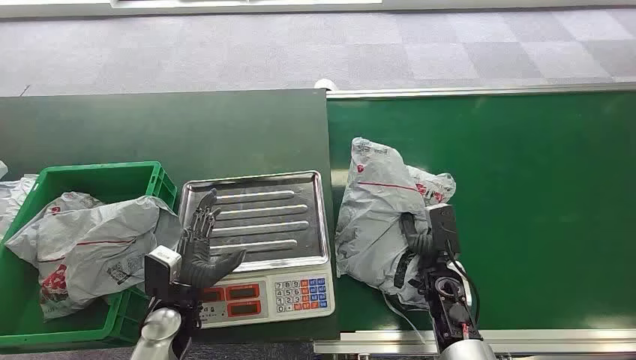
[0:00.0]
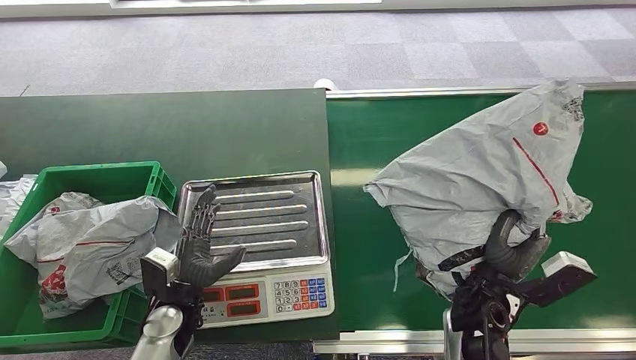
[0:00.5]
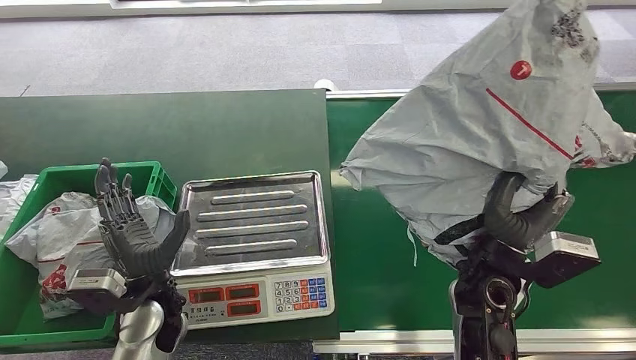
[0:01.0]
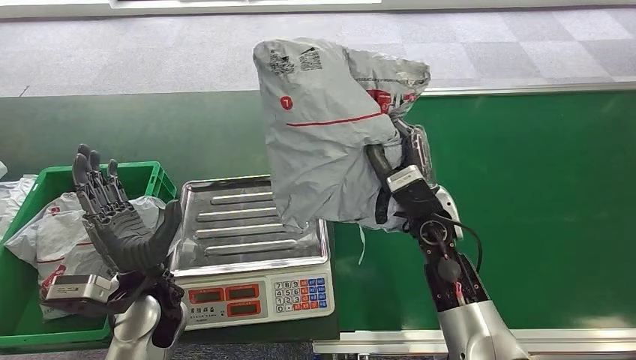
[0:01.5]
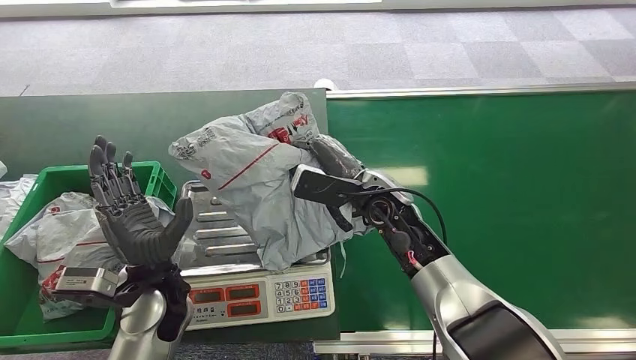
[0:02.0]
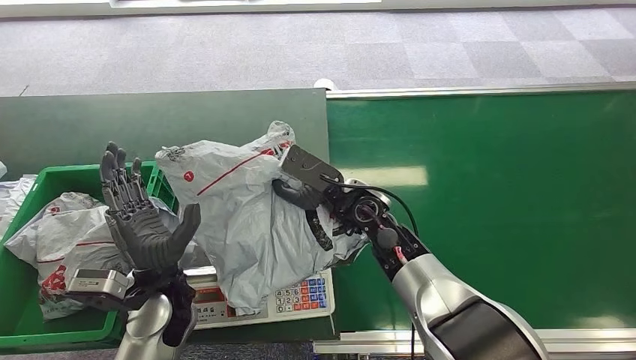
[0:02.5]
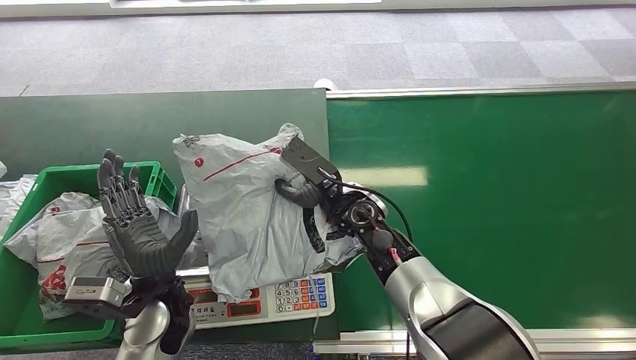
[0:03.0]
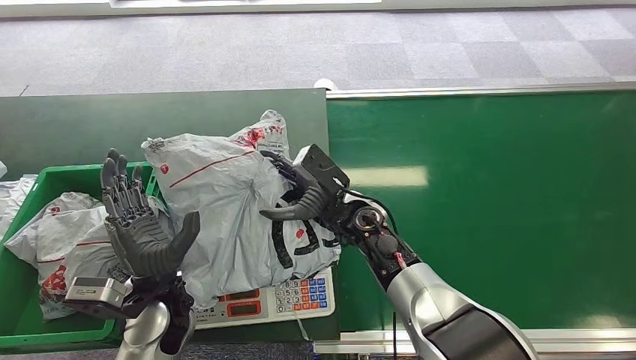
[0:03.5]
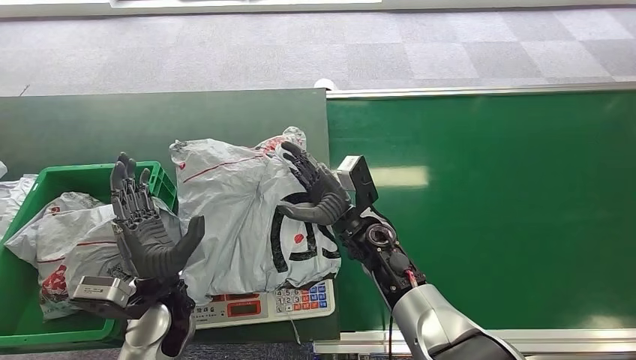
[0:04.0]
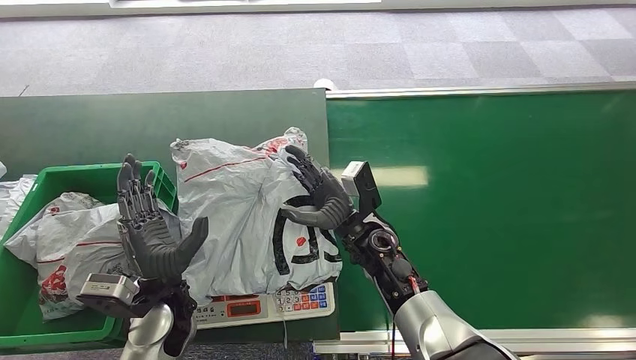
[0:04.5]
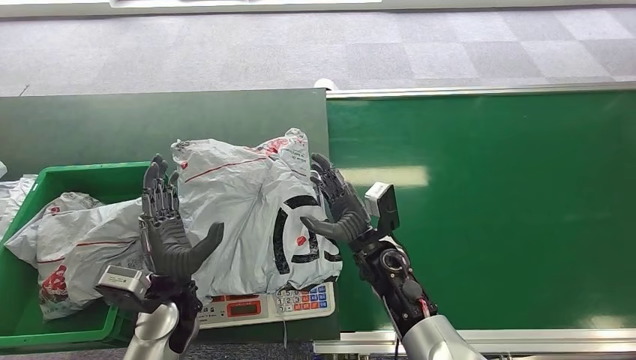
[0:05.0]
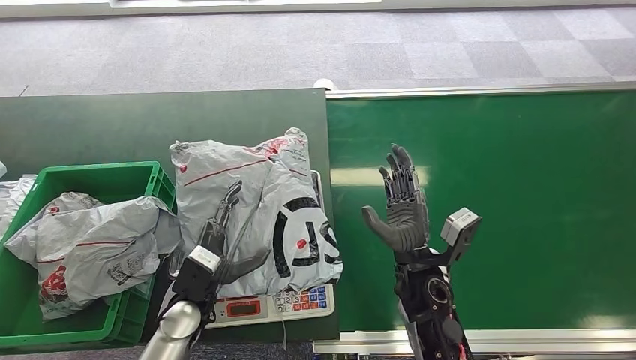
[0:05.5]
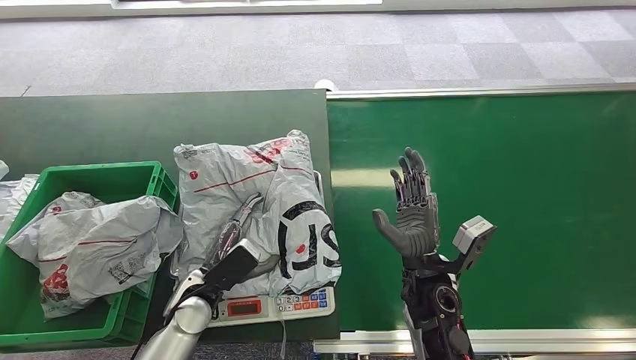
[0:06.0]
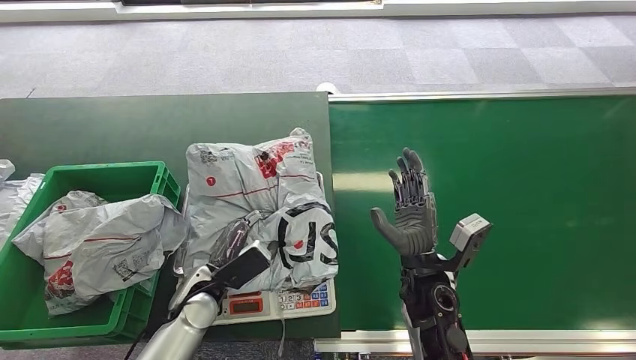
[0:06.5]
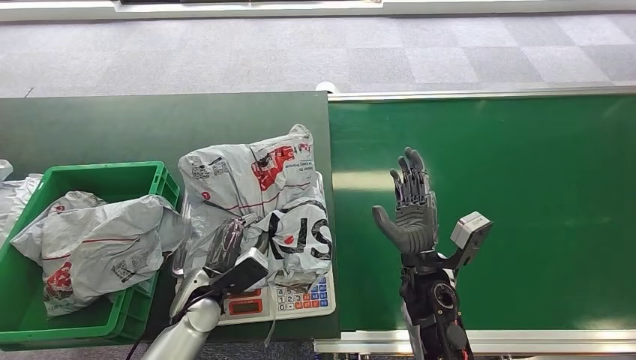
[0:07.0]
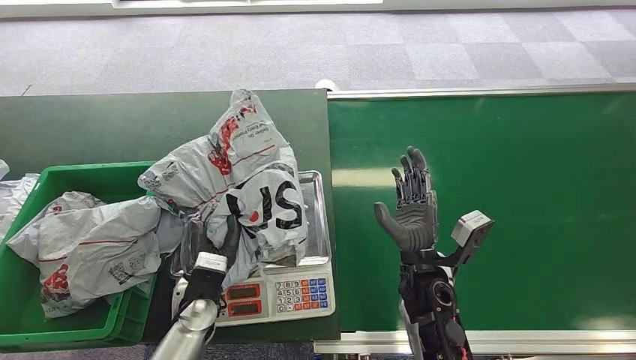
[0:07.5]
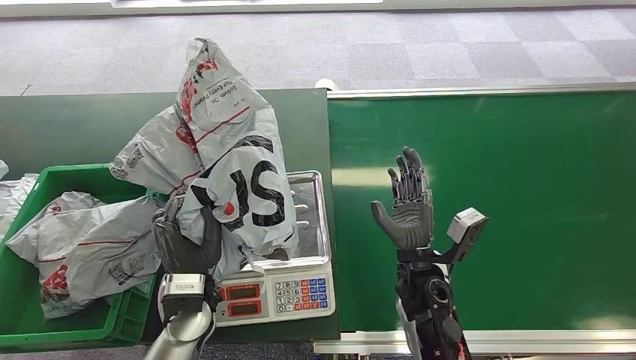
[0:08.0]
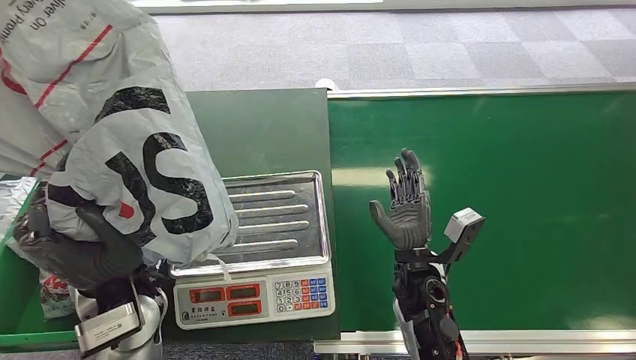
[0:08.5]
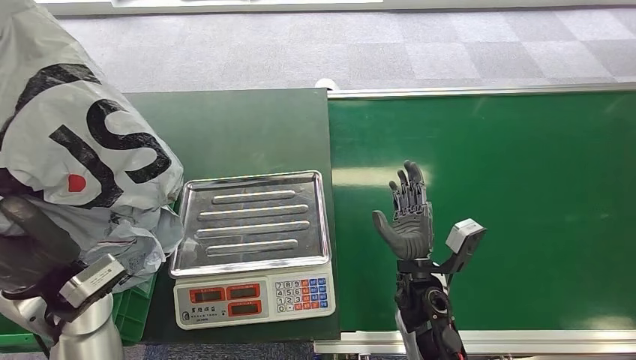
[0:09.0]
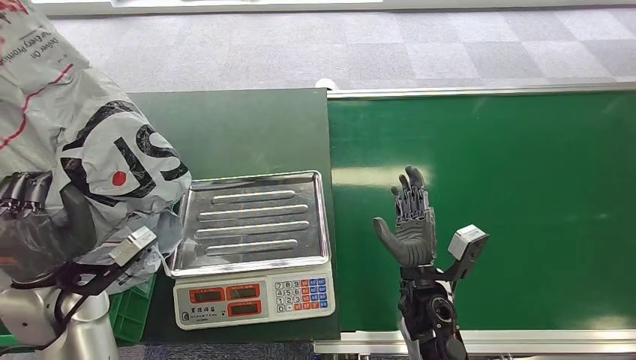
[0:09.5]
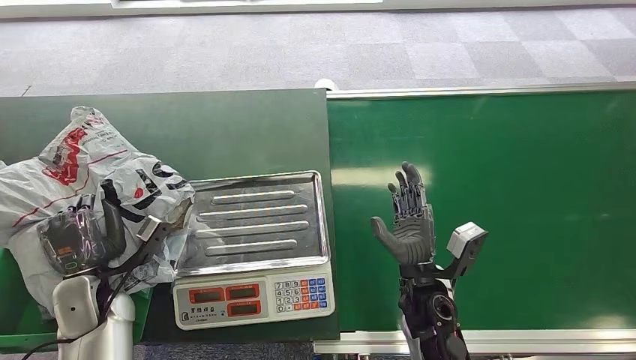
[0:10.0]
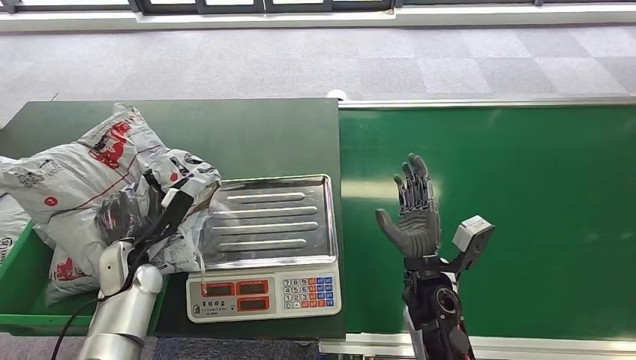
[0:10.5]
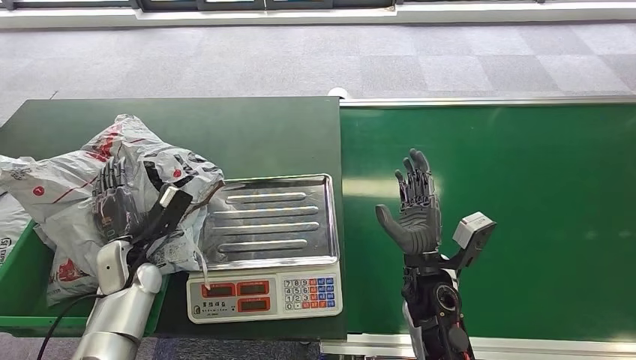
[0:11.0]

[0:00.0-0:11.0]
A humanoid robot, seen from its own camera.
Step, 0:00.0 to 0:00.5: Pick up the package from the conveyor belt.
Step, 0:01.5 to 0:04.0: Place the package onto the inbound machine.
Step, 0:07.5 to 0:08.5: Pick up the package from the inbound machine.
Step, 0:09.5 to 0:11.0: Place the package into the parcel locker.
0:02.0 to 0:03.5: The right hand ends up roughly 5 cm from where it was.
0:03.5 to 0:05.5: The left hand heads downward, covering roughly 5 cm, while the right hand heads backward and to the right, covering roughly 10 cm.
